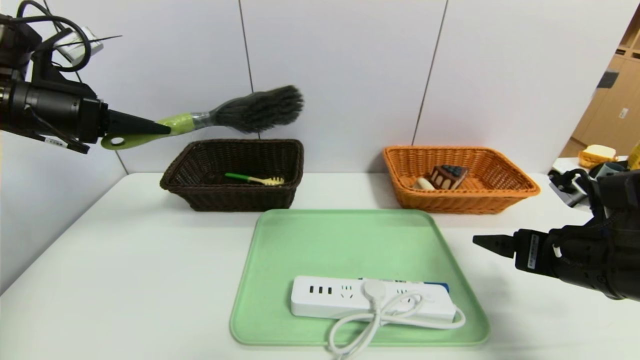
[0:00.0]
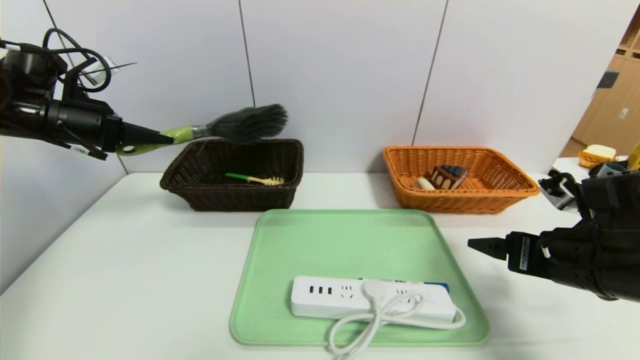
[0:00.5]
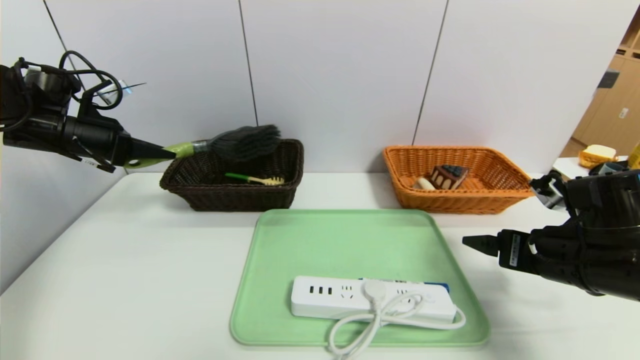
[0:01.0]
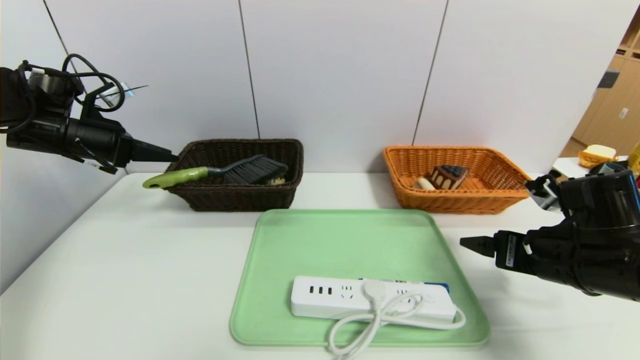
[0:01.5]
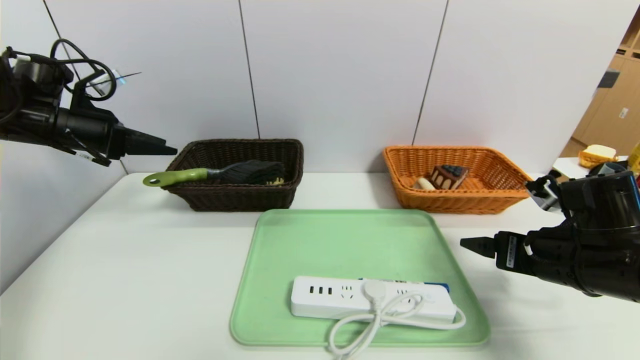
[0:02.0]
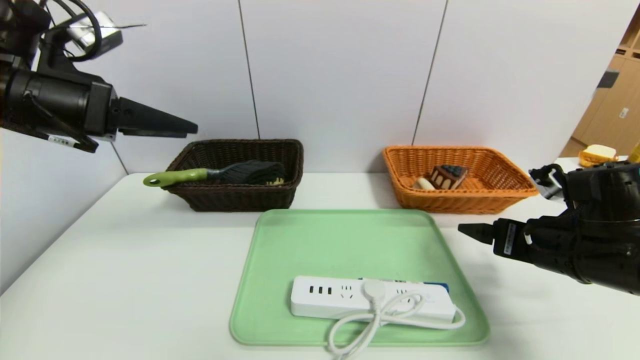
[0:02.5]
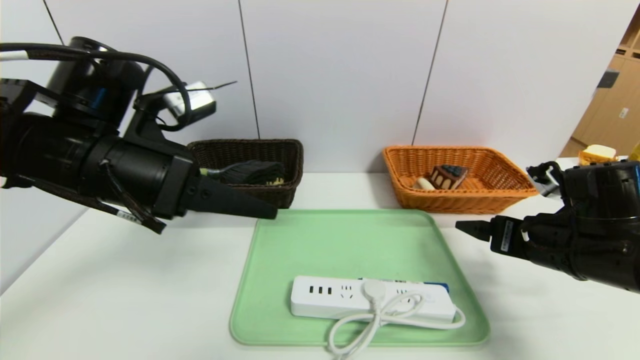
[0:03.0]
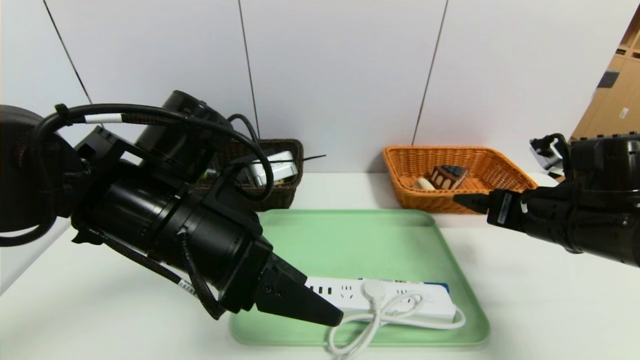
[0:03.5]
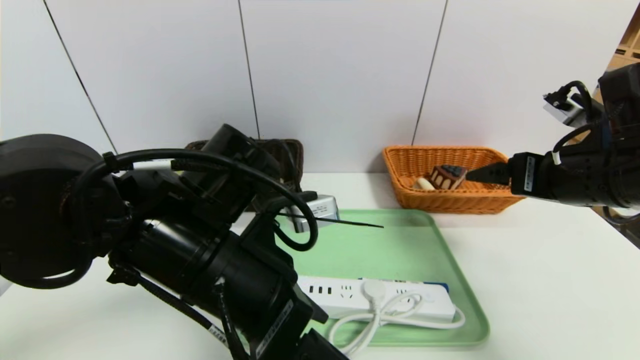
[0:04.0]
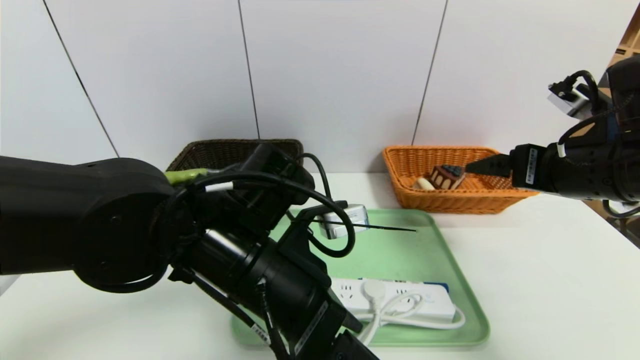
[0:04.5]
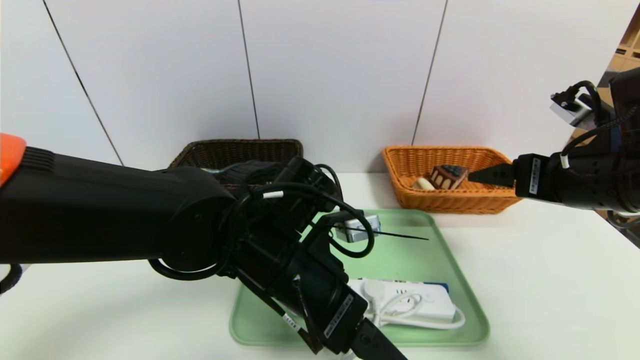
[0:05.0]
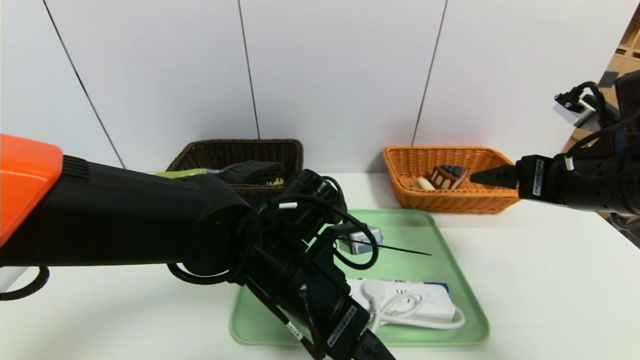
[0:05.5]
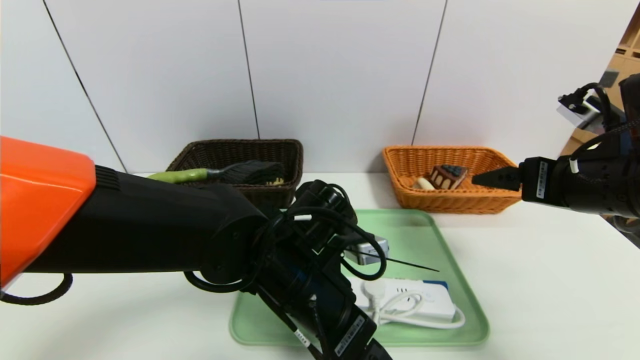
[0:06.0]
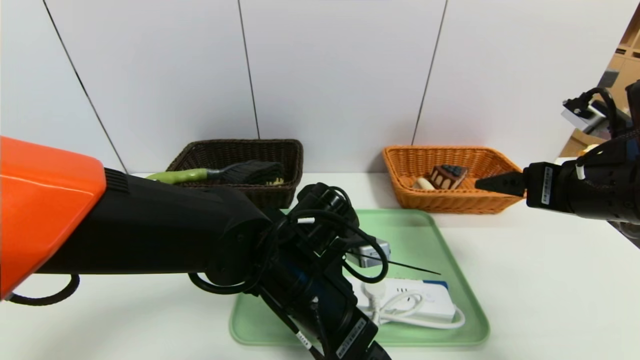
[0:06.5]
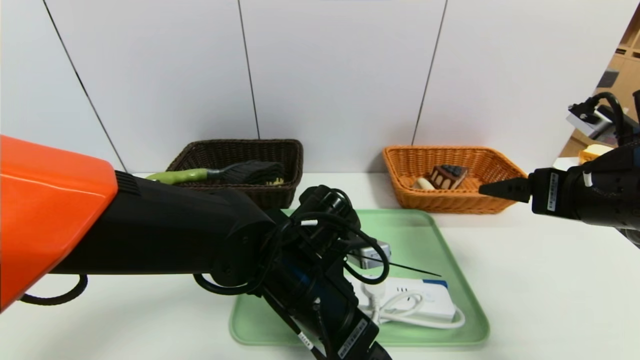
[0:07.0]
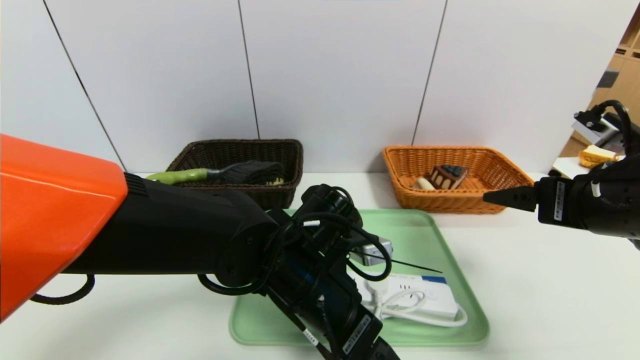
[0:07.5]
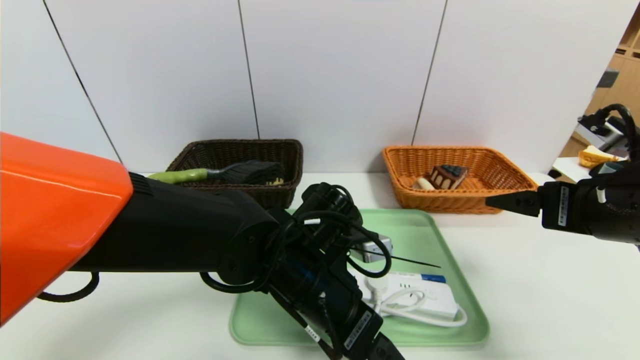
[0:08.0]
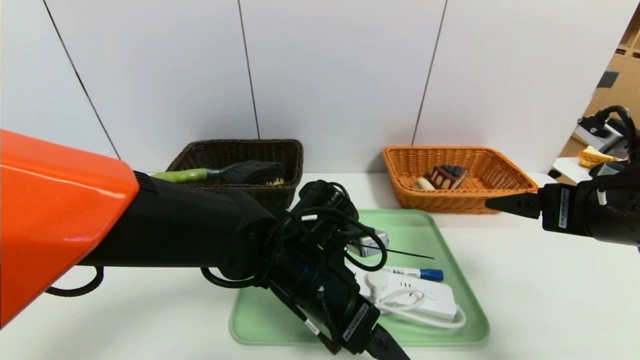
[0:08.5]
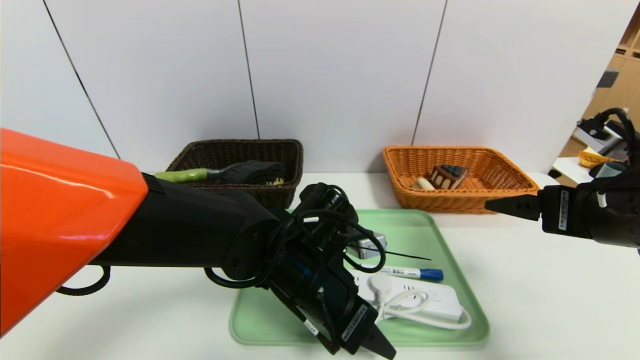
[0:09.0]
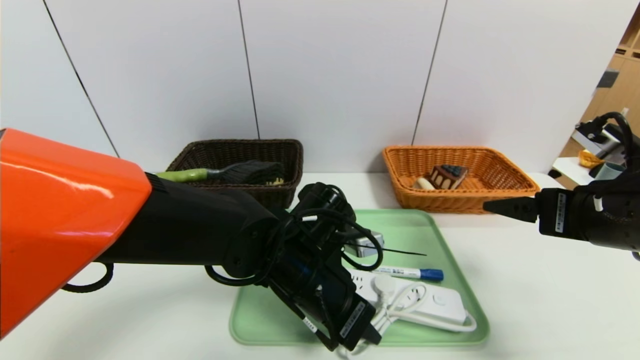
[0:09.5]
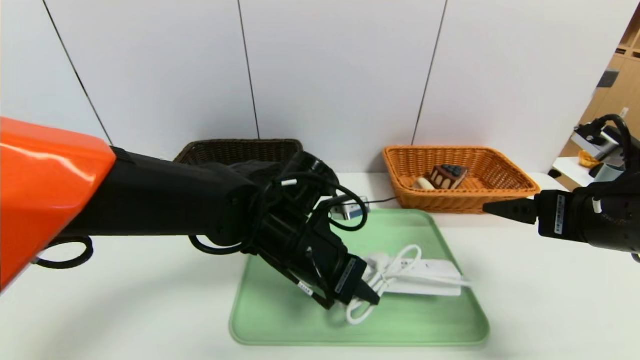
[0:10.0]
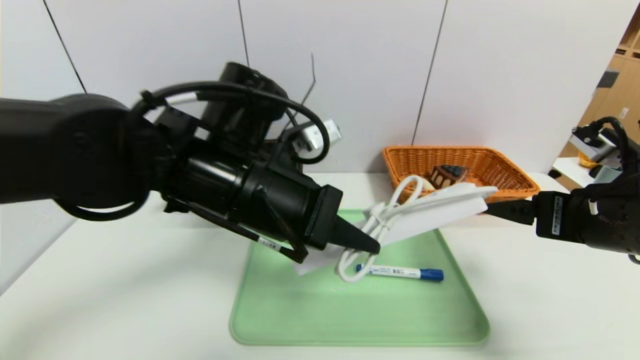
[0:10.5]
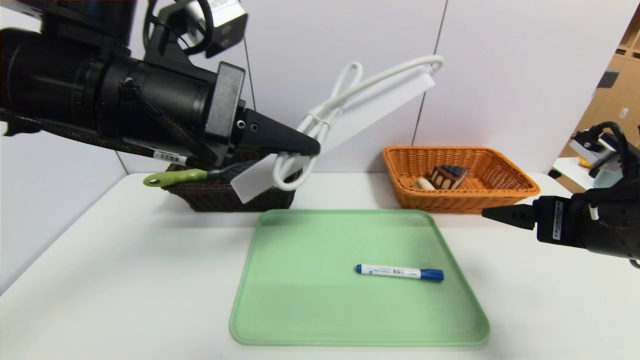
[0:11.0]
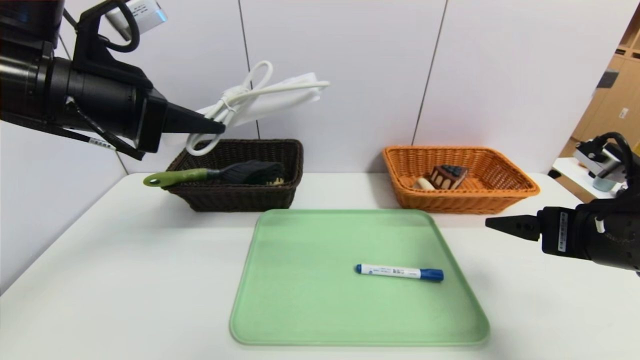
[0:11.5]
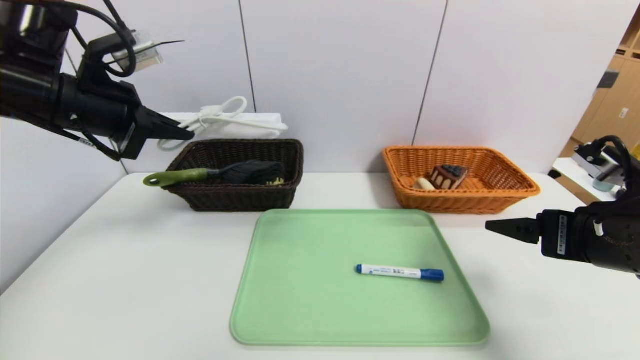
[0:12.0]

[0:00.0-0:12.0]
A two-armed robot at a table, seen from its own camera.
Task of the whole recording: place the food in the right basket with the right gripper, and place the non food items in the left basket with the left gripper.
Step, 0:00.0 to 0:02.0: Grasp the brush and put it in the left basket.
0:00.0 to 0:02.0: The left gripper heads forward, covering approximately 5 cm, and opens up.
0:02.0 to 0:04.0: The right gripper heads upward, covering roughly 10 cm, while the left gripper shifts about 35 cm to the right and backward.
0:04.0 to 0:06.0: The left gripper moves downward and to the right, some 10 cm.
0:06.0 to 0:08.0: The grippers stay close to where they were, moving slightly.
0:08.0 to 0:10.0: The left gripper closes.
0:10.0 to 0:12.0: The left gripper goes about 30 cm to the left and upward.

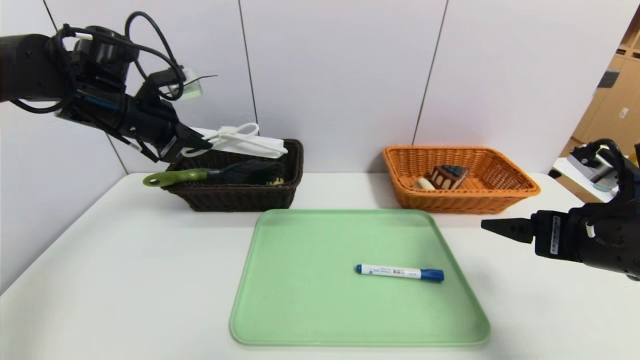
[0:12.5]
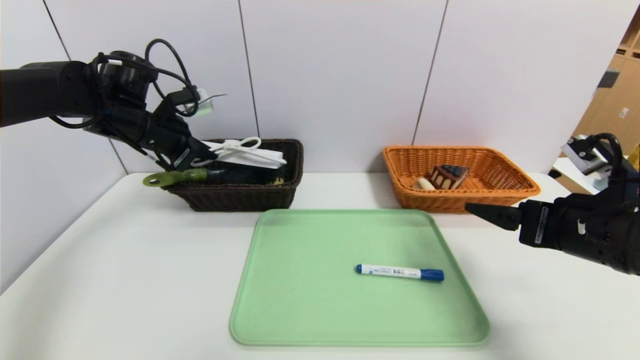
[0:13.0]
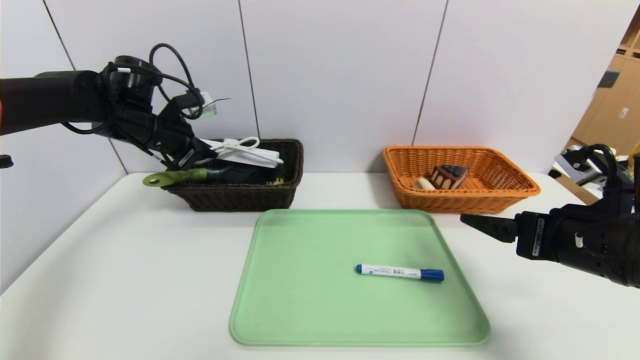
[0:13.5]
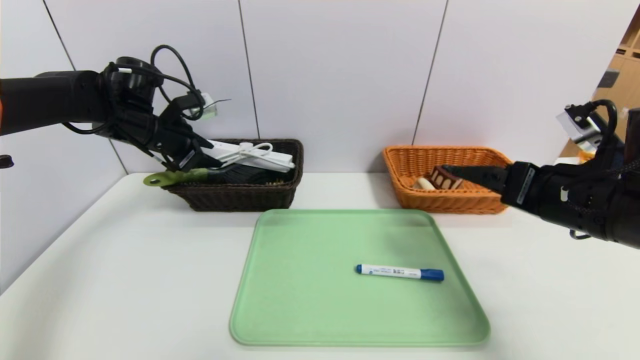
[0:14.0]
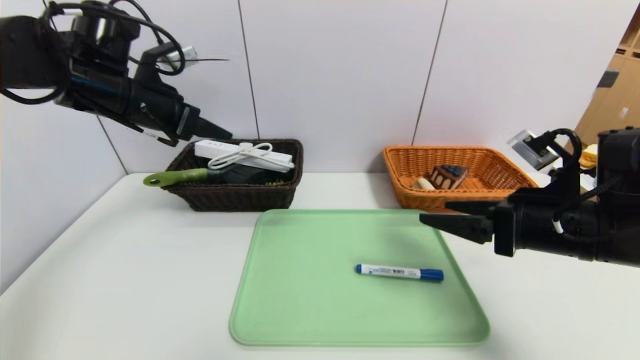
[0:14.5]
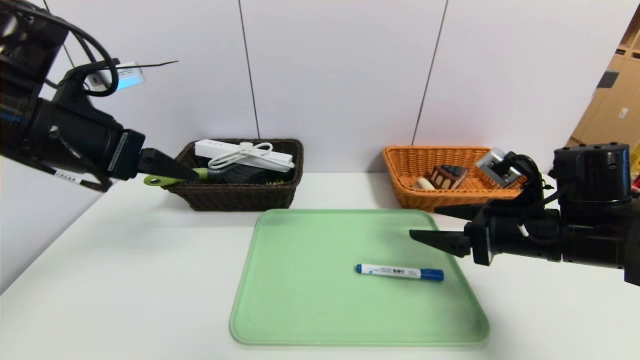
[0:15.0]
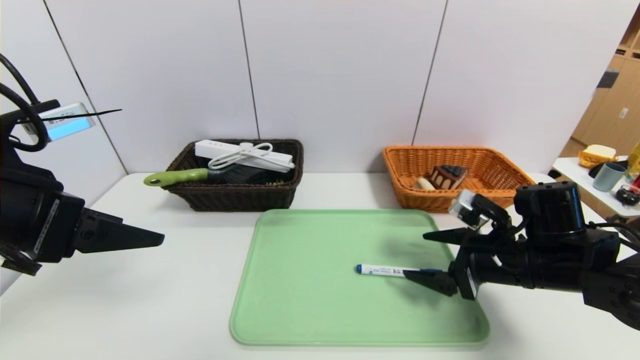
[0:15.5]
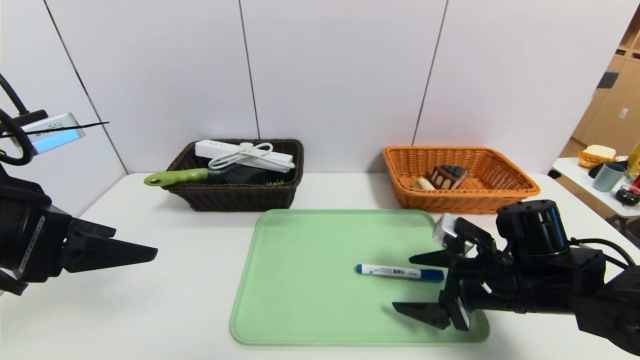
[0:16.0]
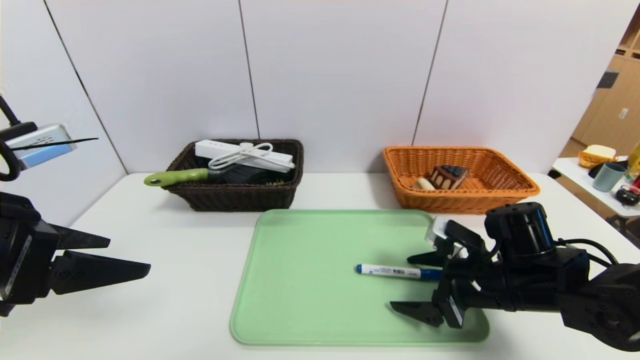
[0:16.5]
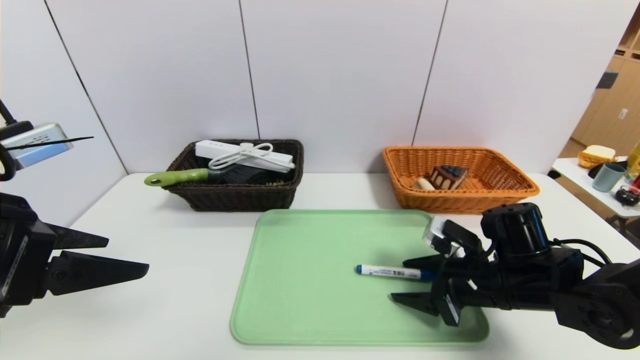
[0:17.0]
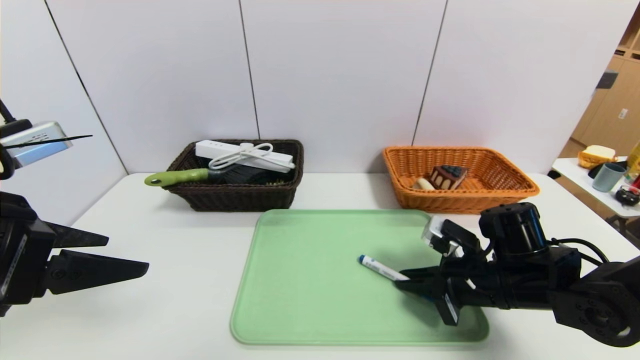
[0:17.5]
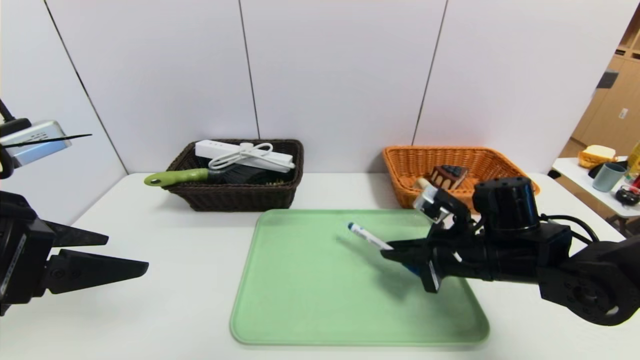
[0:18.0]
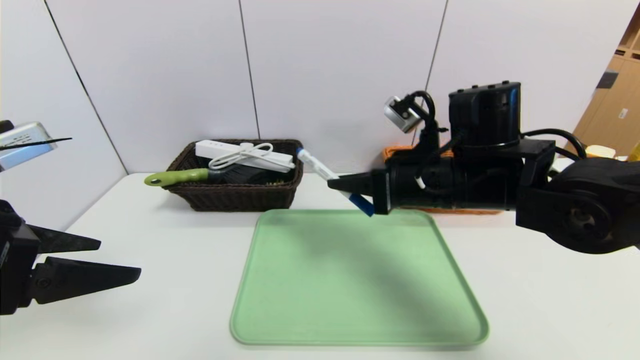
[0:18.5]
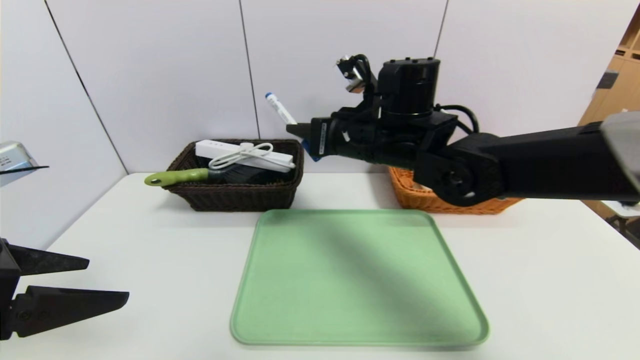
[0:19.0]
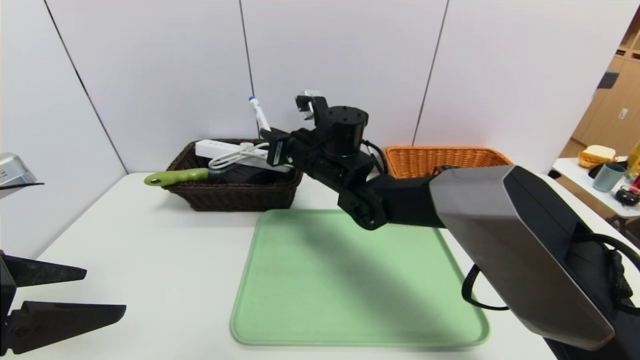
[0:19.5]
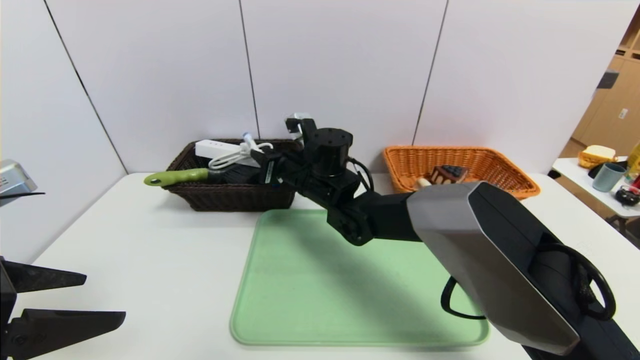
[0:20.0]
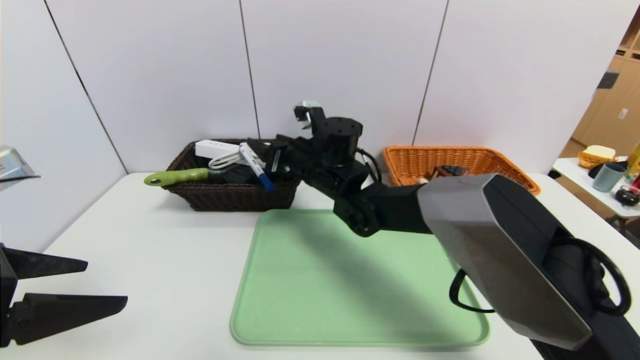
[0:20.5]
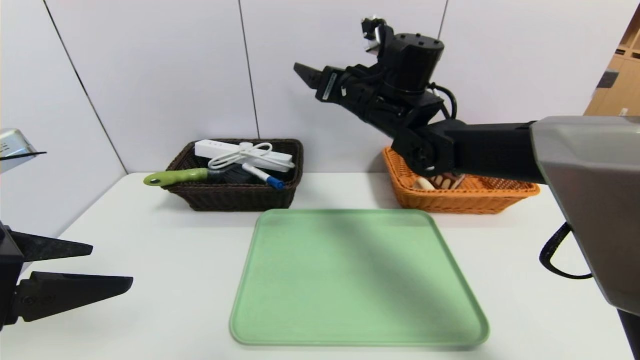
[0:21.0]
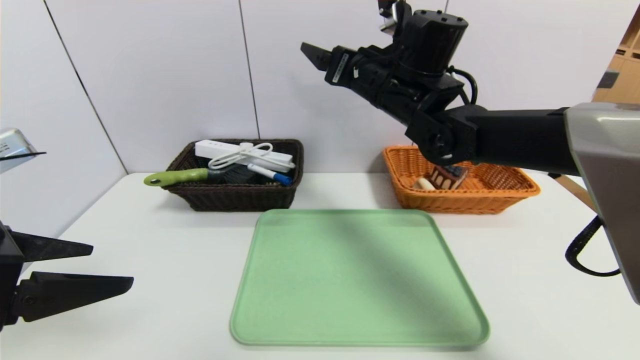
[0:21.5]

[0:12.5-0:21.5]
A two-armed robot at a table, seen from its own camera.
Task of the whole recording: place the food in the right basket with the right gripper, and place the non food items in the left basket with the left gripper.
Step, 0:12.5 to 0:15.0: Grasp the power strip and put it in the left basket.
0:12.5 to 0:14.5: The left gripper opens its fingers.
0:14.5 to 0:17.0: The left gripper goes roughly 20 cm backward. Meanwhile the right gripper travels downward by approximately 10 cm.
0:17.0 to 0:19.5: The right gripper is displaced to the left, forward and upward by roughly 30 cm, and closes up.
0:19.5 to 0:21.5: The right gripper goes some 15 cm upward and to the right, and opens.
